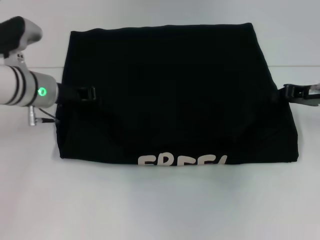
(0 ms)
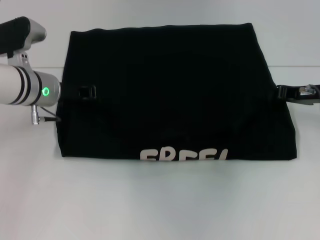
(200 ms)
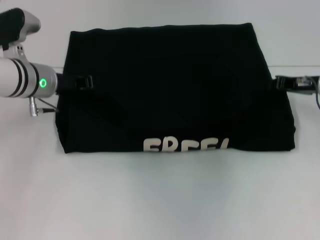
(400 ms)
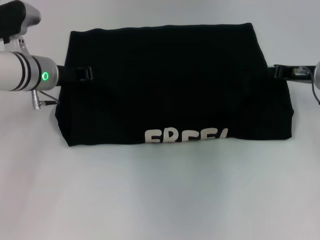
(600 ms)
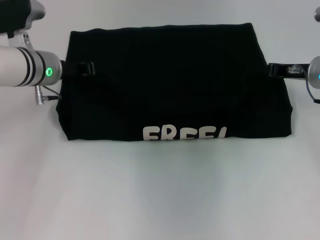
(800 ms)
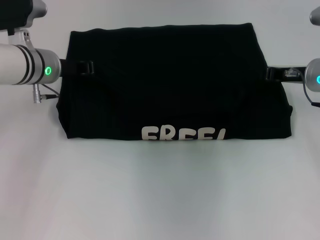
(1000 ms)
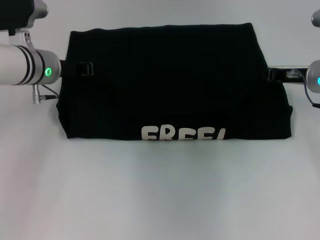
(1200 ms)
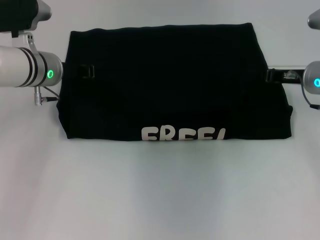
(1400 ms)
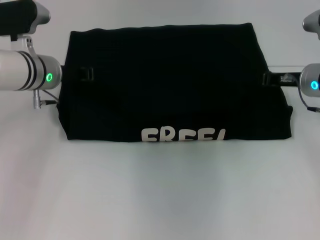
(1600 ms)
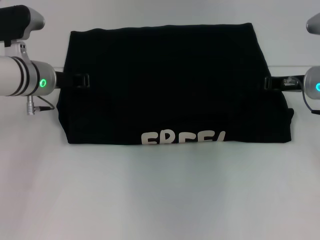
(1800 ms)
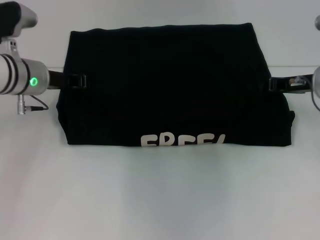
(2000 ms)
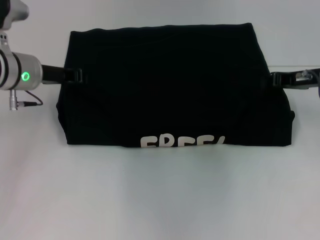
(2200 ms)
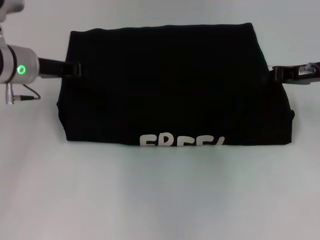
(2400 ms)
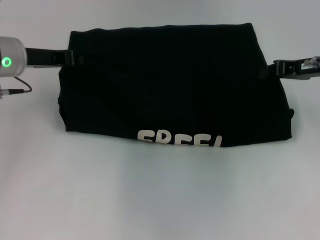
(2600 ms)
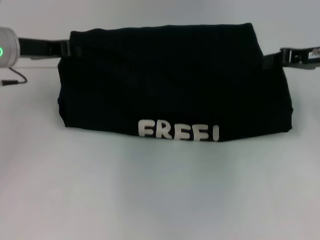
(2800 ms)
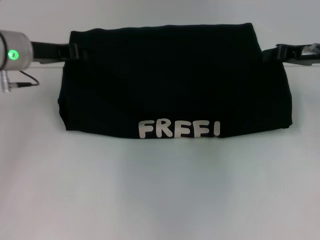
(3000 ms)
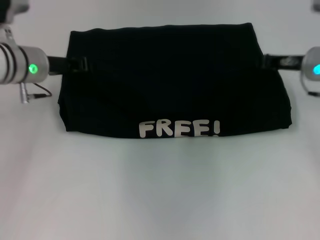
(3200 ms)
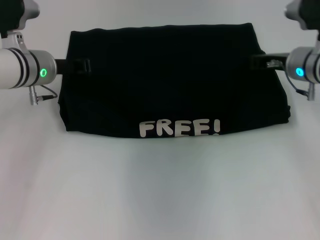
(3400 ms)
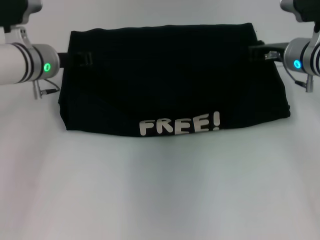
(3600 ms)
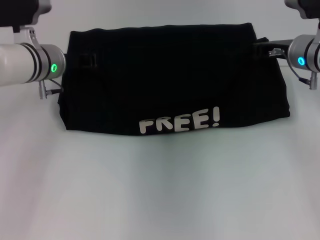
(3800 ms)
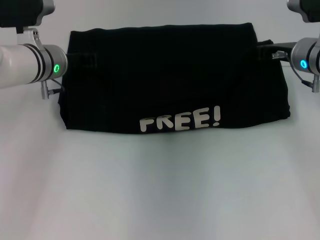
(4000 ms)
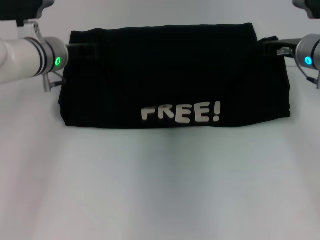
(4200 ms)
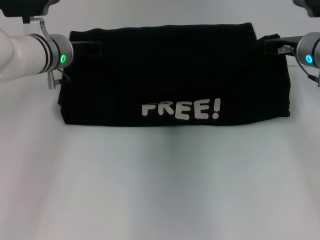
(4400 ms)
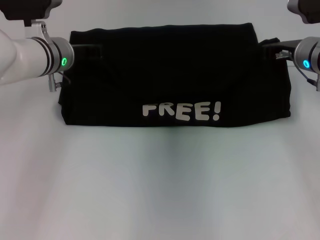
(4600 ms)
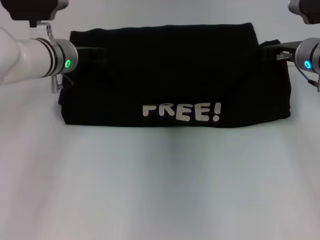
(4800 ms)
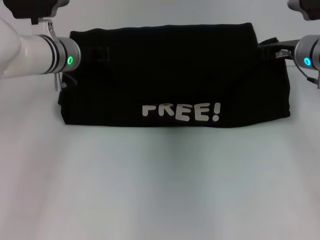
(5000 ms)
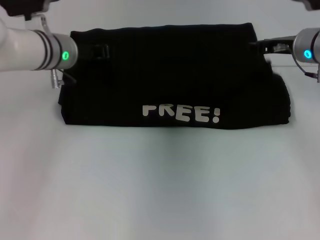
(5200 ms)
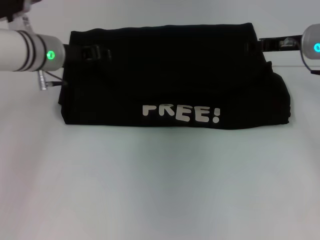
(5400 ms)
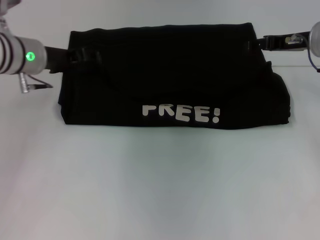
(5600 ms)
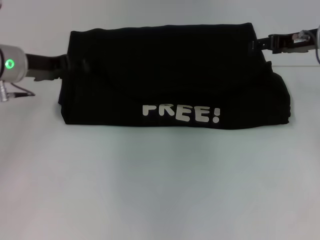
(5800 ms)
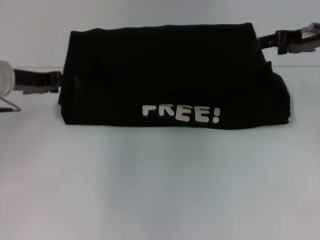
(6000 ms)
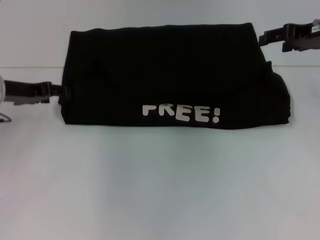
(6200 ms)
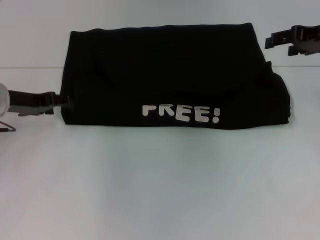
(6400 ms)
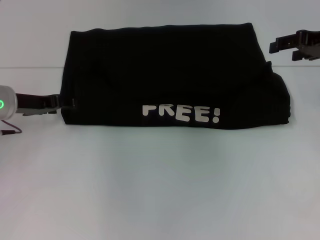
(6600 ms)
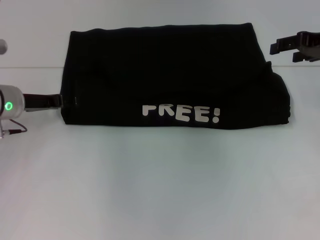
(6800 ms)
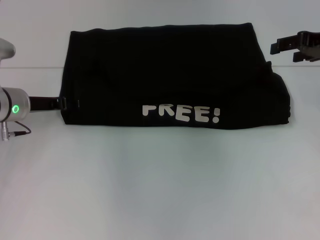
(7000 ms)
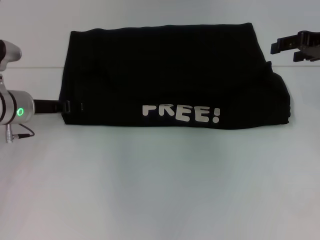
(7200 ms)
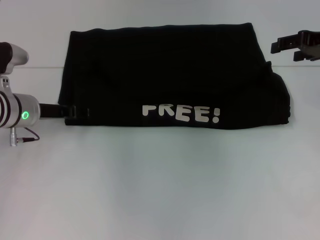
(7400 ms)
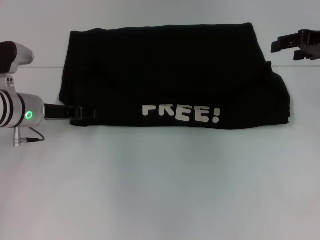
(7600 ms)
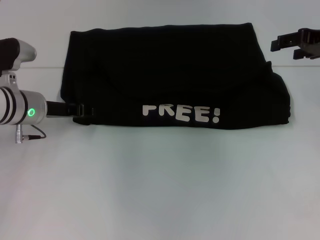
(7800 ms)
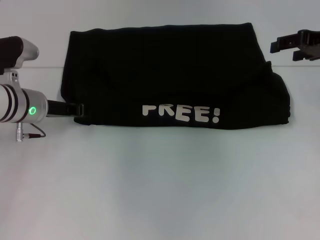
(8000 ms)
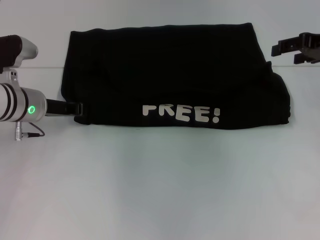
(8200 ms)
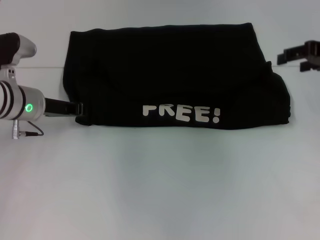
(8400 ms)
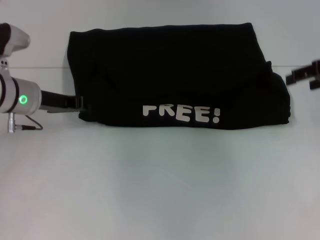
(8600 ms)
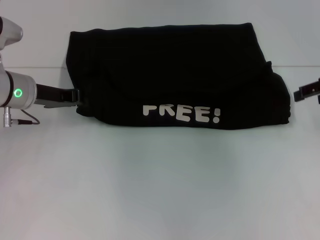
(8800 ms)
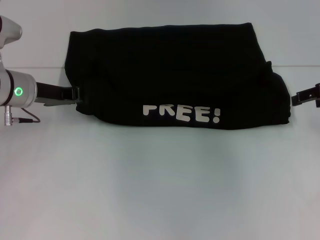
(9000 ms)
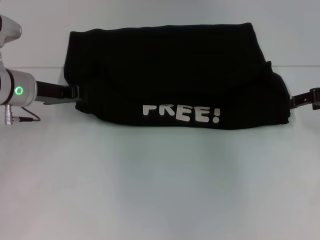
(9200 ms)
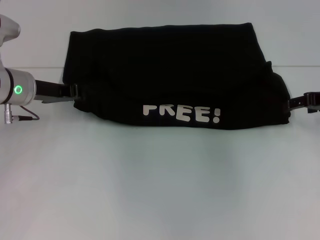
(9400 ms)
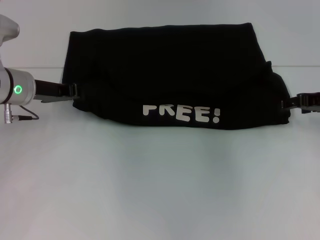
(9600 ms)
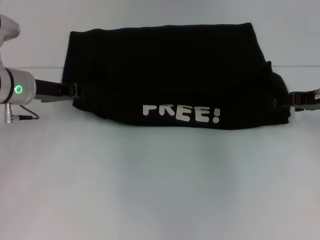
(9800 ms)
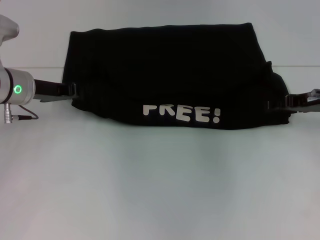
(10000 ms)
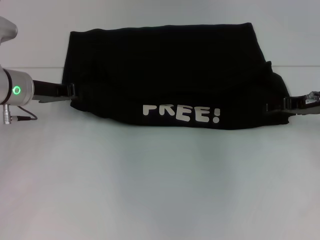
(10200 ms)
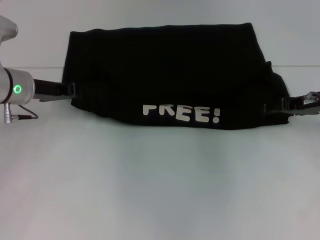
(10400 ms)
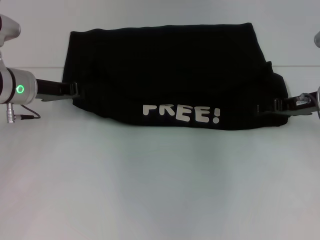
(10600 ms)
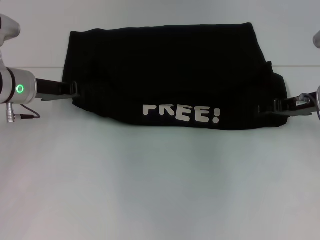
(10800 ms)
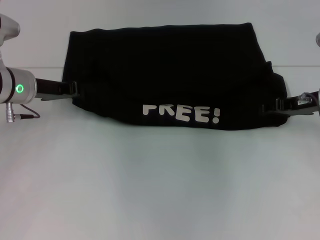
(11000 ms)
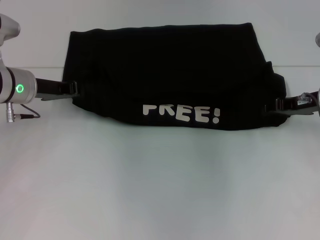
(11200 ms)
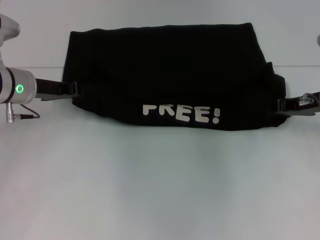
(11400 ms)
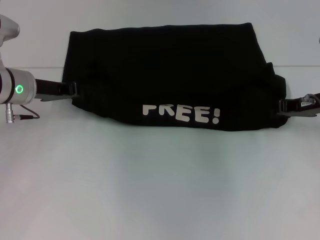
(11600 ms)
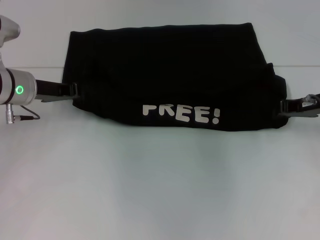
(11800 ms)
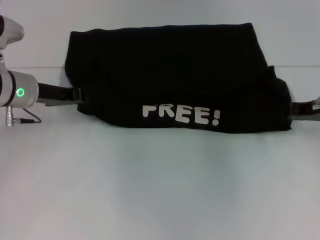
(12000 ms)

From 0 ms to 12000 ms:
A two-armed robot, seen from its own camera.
Step, from 0 ms to 5200 ms: Fold the clothes with your left hand.
Step, from 0 ms to 5200 ms: Fold the clothes with your right hand.
From 0 ms to 1600 ms: The right gripper shifts by about 5 cm.
From 1600 ms to 3000 ms: Both grippers move upward, roughly 5 cm.
From 3000 ms to 4400 ms: The left gripper shifts roughly 5 cm to the right. The right gripper moves some 5 cm.
From 4400 ms to 6000 ms: The left gripper heads to the left and backward, covering approximately 10 cm, and opens its fingers. Meanwhile the right gripper goes some 5 cm upward, and opens up.
From 6000 ms to 7600 ms: The left gripper heads downward, covering some 5 cm.
From 7600 ms to 9000 ms: The right gripper changes place by roughly 5 cm; the left gripper closes its fingers.
From 9000 ms to 10400 ms: The right gripper heads downward, covering some 5 cm.
From 10400 ms to 12000 ms: The right gripper closes up.

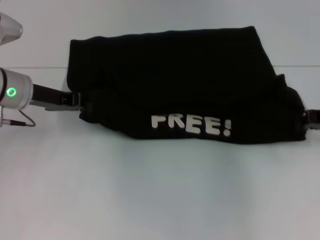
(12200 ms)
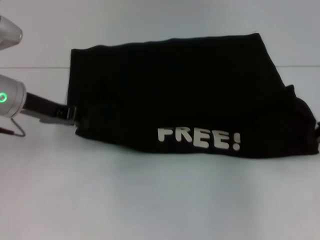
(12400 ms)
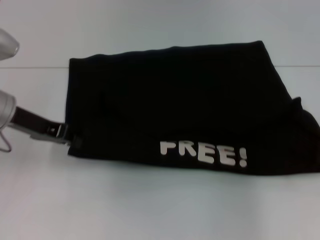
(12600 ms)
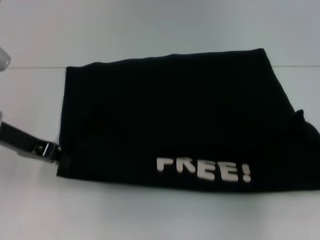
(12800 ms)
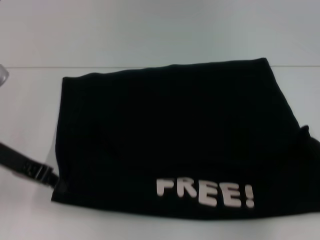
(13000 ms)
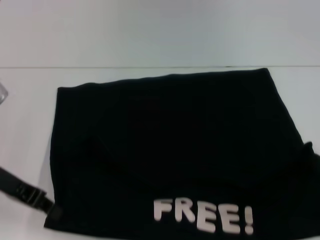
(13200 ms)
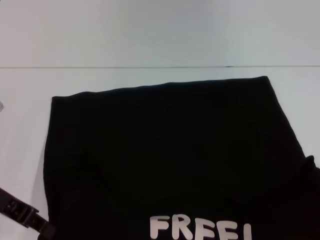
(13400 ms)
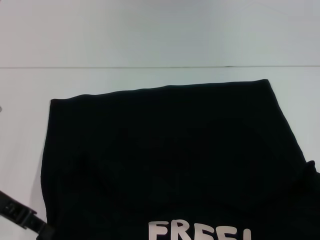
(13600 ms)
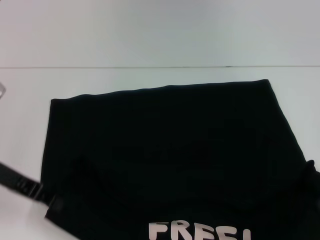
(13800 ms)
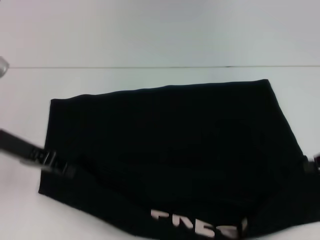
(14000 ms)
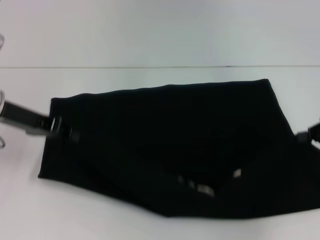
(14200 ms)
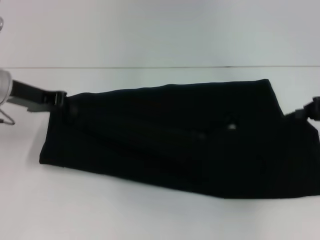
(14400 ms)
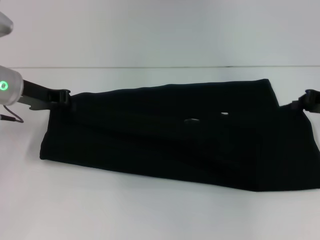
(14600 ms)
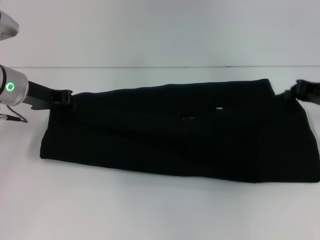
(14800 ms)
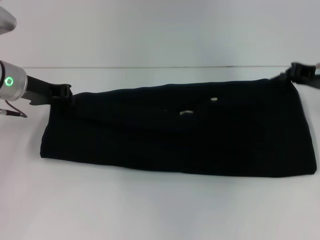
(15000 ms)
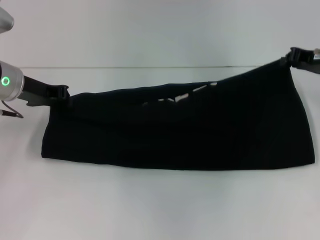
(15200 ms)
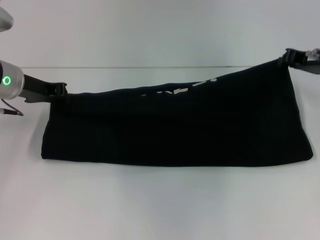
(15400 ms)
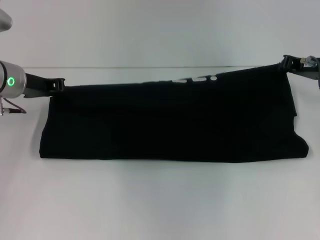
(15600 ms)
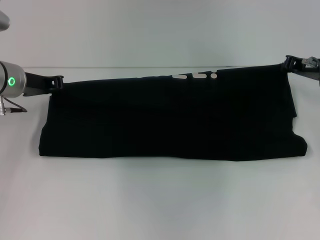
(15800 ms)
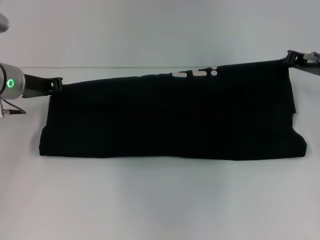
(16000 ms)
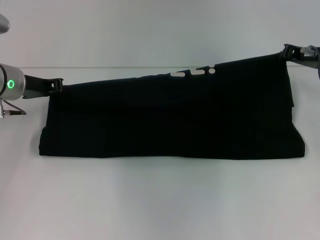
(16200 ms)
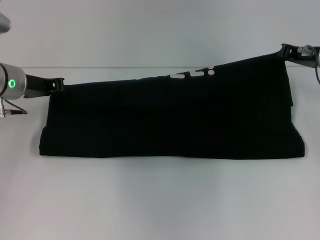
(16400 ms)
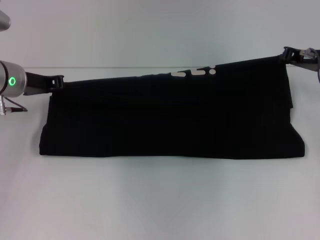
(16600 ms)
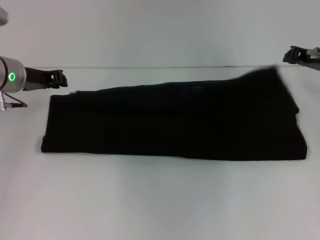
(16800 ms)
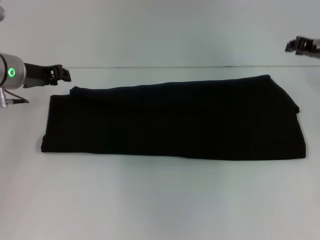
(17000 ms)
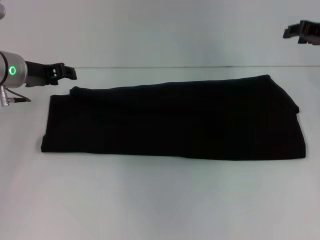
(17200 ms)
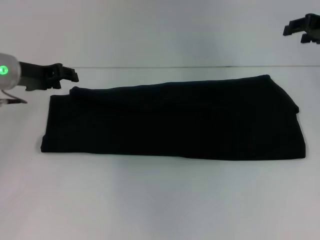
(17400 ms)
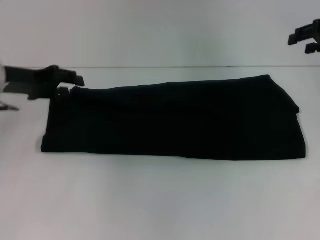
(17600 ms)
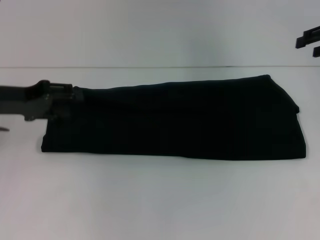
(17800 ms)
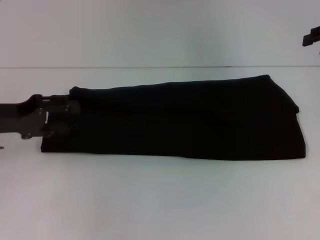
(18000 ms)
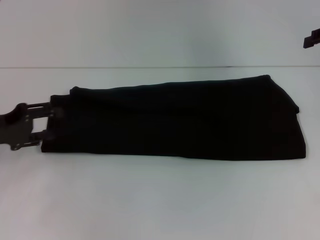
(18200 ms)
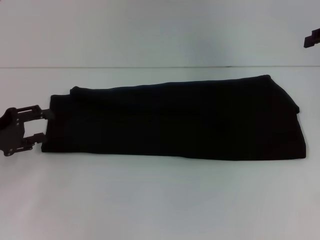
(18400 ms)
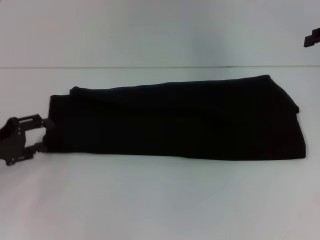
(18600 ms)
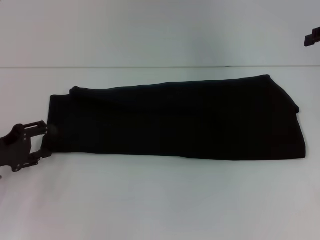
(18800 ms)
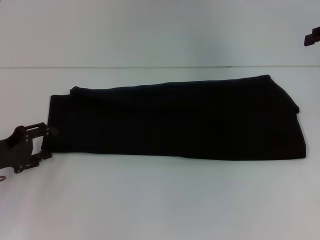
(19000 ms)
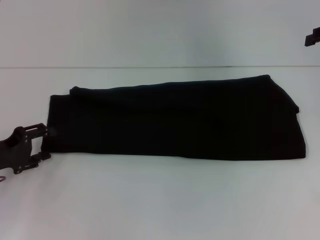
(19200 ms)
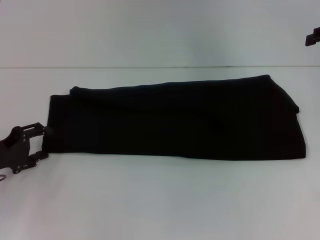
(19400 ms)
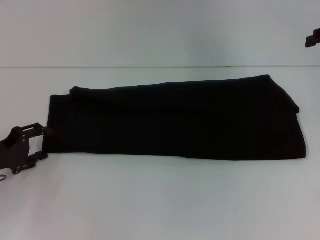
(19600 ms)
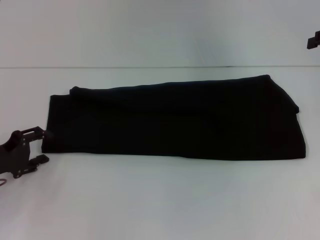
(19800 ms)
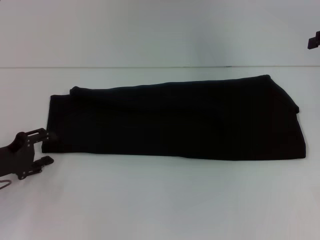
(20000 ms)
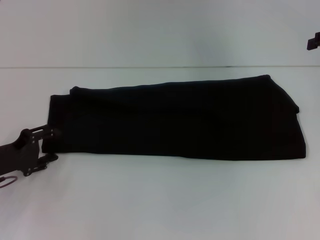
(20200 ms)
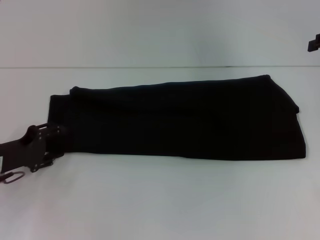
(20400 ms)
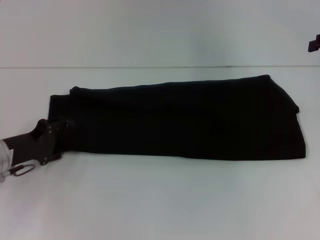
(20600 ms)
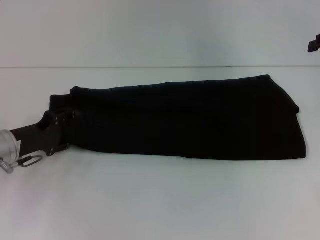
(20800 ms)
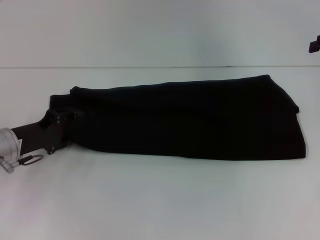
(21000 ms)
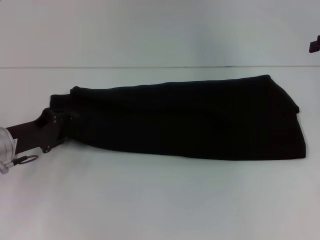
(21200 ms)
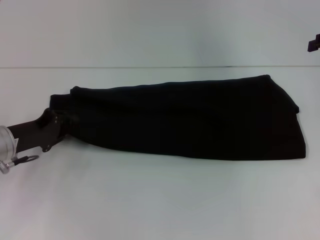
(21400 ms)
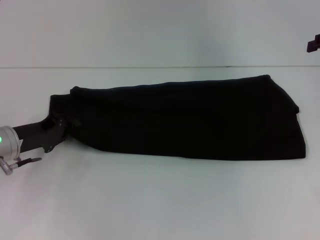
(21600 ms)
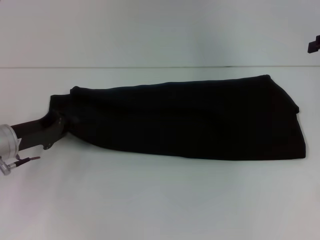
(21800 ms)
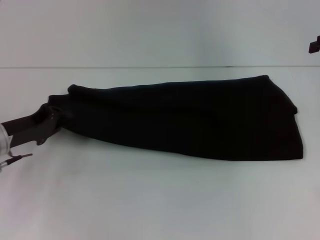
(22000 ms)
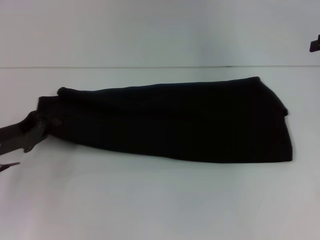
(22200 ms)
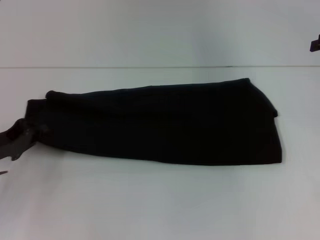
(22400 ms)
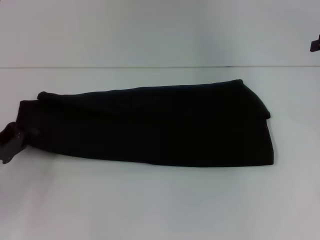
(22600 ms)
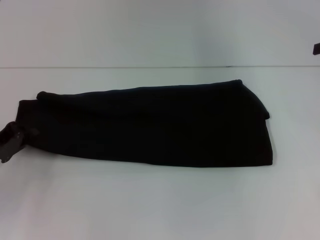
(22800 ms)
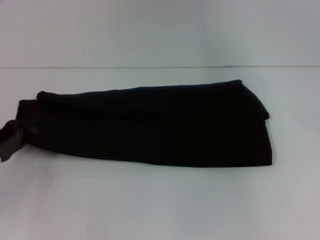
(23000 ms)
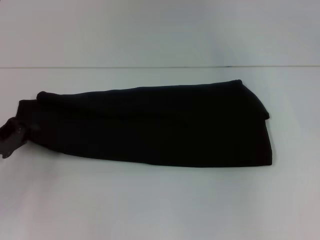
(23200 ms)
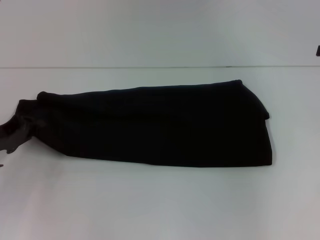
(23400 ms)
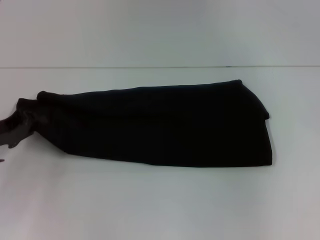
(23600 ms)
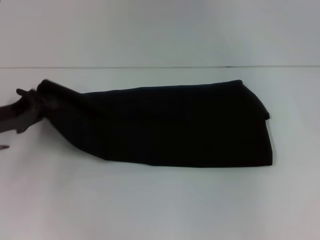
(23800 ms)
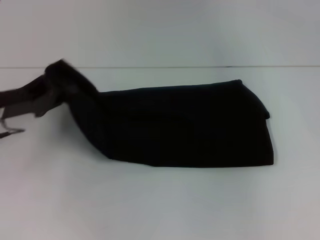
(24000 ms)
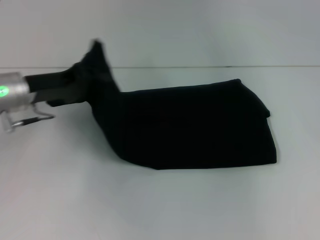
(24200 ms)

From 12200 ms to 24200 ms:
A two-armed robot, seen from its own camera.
Step, from 13800 ms to 17000 ms: Fold the clothes with your right hand.
From 12200 ms to 13800 ms: Both grippers move backward, some 10 cm.
From 13800 ms to 15200 ms: Both grippers travel together forward, some 15 cm.
From 15200 ms to 16600 ms: The grippers make only small movements.
From 16600 ms to 18200 ms: The right gripper goes roughly 10 cm upward and to the right, and opens its fingers. Meanwhile the left gripper shifts about 15 cm backward and to the left, and opens up.
From 18200 ms to 19800 ms: The left gripper moves downward, roughly 5 cm.
From 19800 ms to 21200 ms: The left gripper moves roughly 5 cm.
From 21200 ms to 22600 ms: The left gripper shifts by about 5 cm, and closes.
From 22600 ms to 24200 ms: The left gripper shifts roughly 15 cm upward, to the right and forward; the right gripper changes place by about 5 cm.
